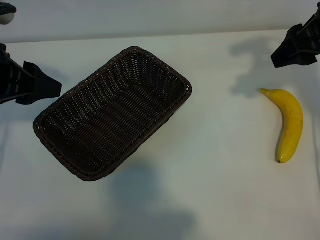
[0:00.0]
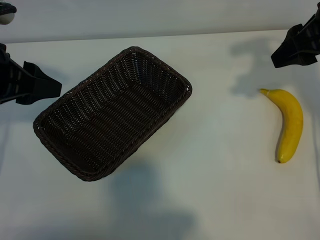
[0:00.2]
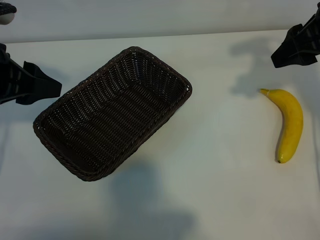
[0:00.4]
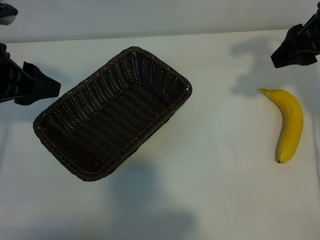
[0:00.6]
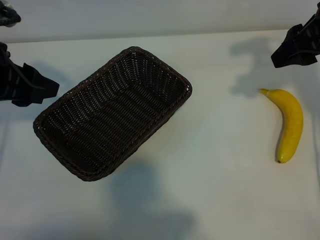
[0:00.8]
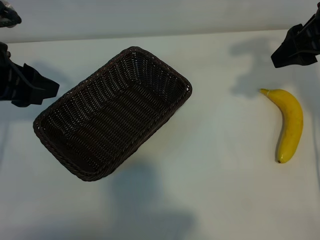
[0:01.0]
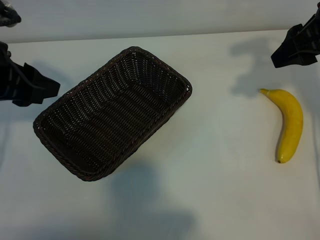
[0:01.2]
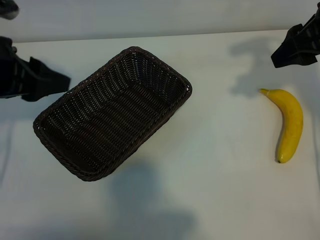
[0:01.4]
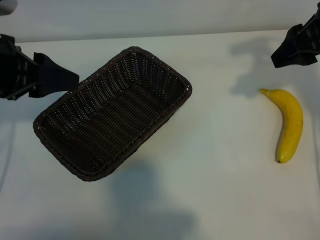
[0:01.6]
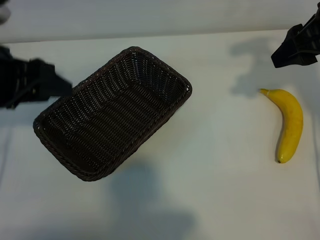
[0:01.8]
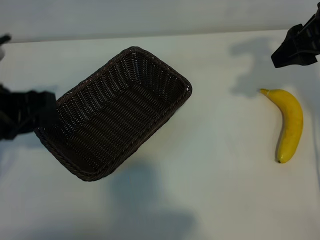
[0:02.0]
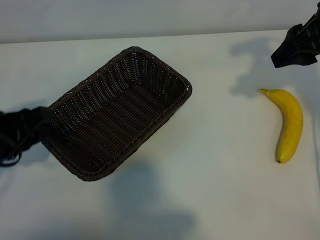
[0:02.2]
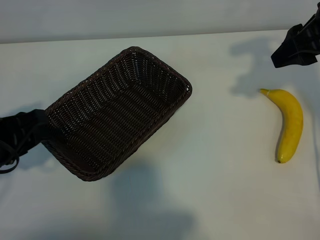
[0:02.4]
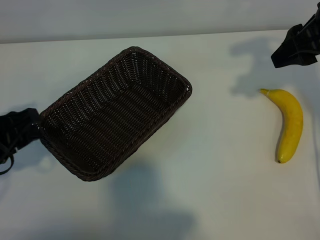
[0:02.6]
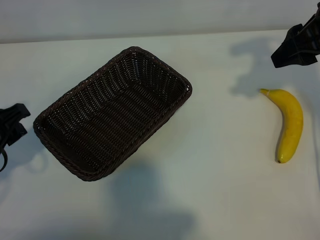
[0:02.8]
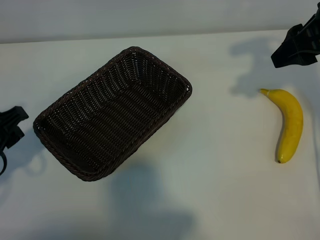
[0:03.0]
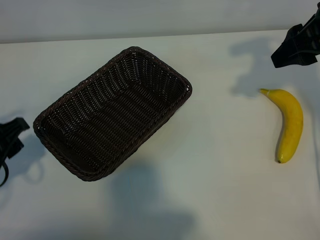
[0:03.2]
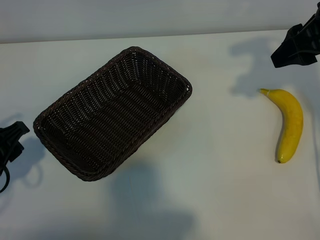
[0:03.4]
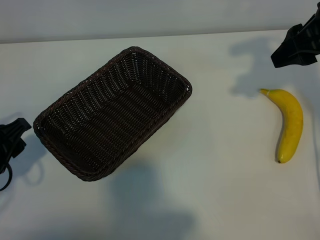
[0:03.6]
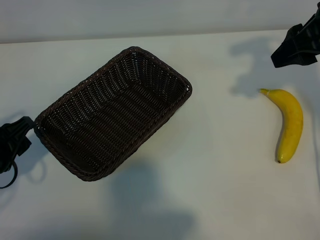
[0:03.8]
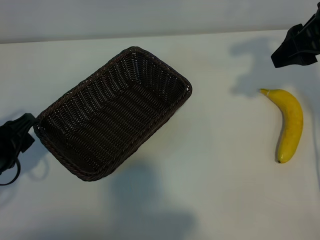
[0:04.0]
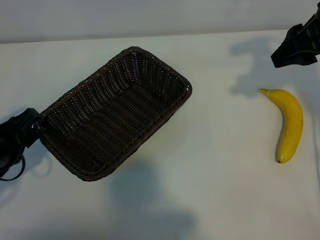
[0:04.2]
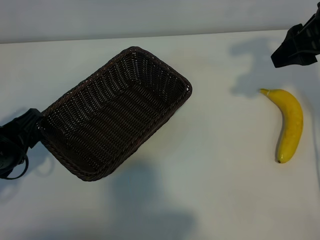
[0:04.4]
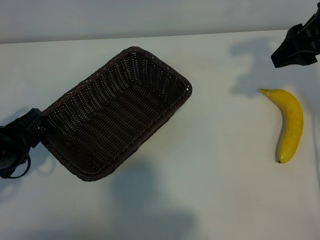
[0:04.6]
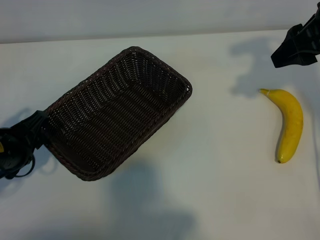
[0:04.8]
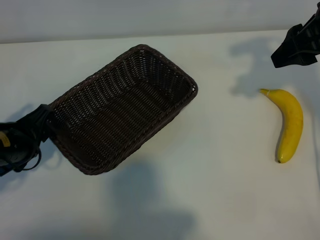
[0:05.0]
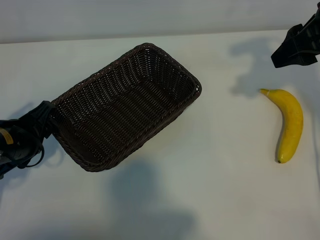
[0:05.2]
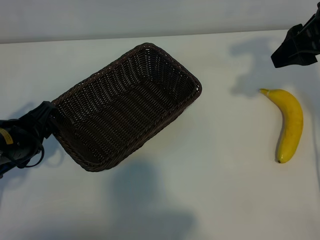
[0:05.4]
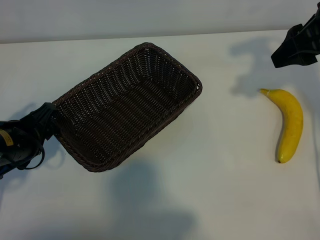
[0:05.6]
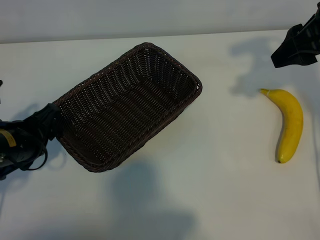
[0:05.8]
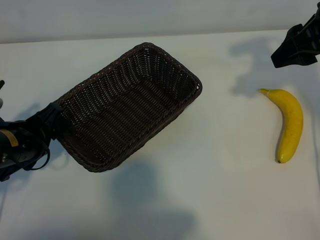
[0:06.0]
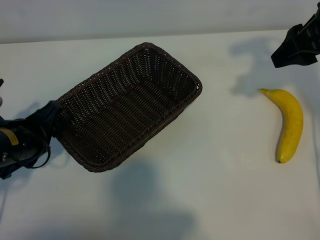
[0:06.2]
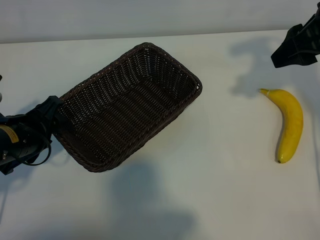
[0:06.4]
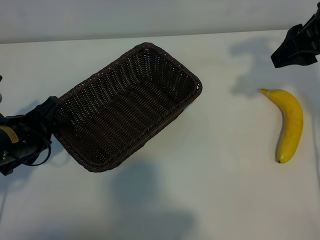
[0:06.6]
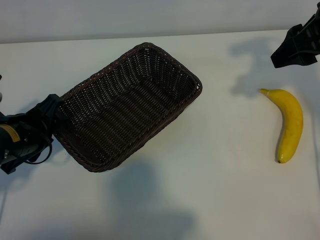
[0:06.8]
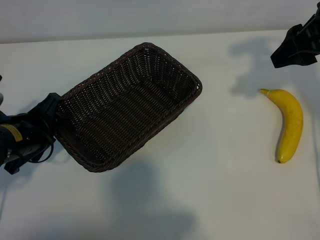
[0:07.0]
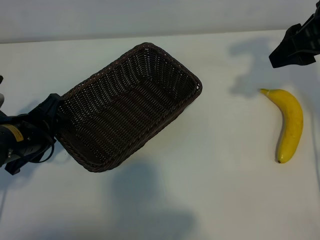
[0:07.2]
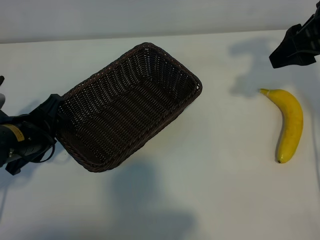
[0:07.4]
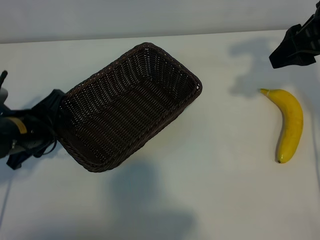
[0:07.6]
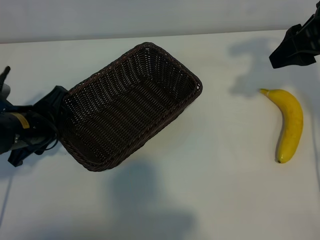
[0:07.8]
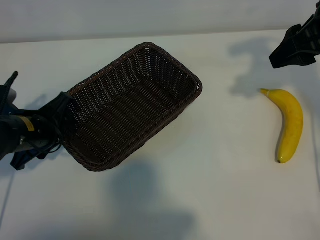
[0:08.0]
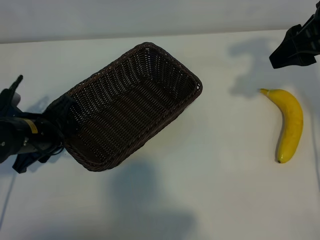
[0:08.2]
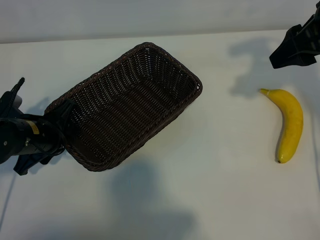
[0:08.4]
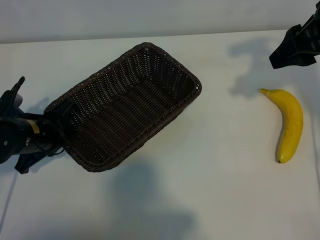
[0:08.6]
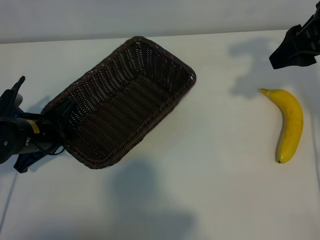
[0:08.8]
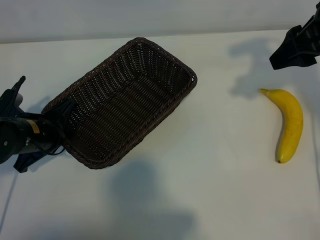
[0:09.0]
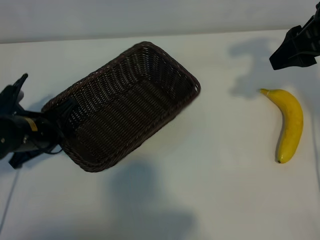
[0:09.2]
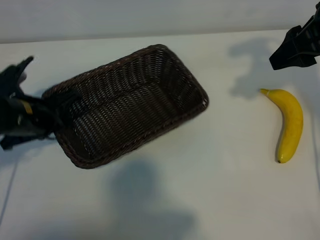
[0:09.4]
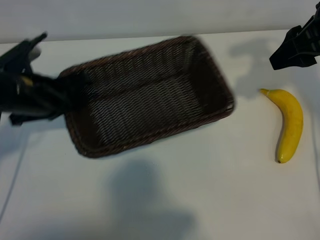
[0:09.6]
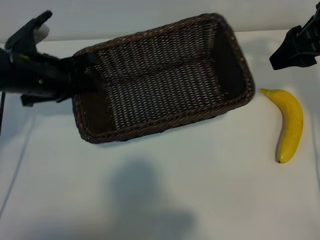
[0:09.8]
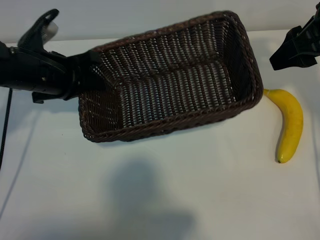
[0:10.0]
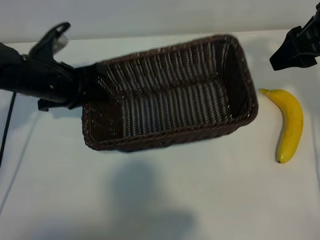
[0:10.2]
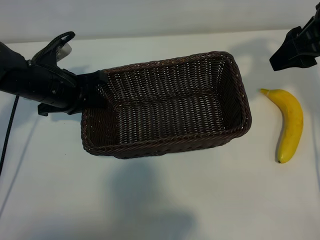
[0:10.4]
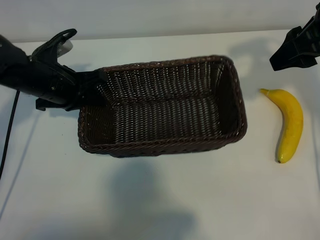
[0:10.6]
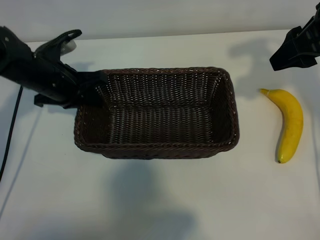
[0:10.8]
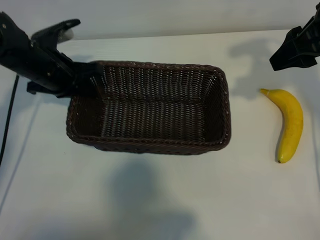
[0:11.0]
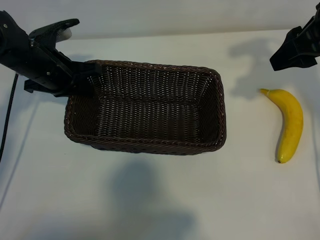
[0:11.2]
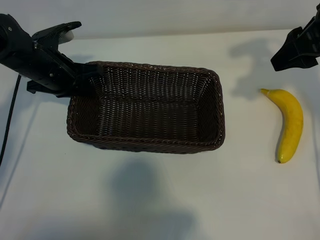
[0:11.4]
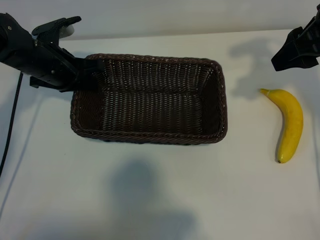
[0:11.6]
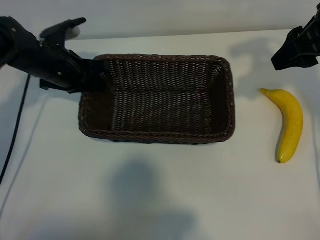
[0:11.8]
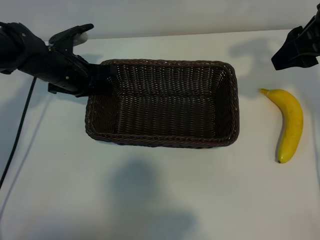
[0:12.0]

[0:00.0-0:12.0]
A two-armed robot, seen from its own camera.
Task of the whole recording: pick up the banana and put it into the basket.
Step, 0:00.6 to 0:08.6: Grasp the basket with the left gripper.

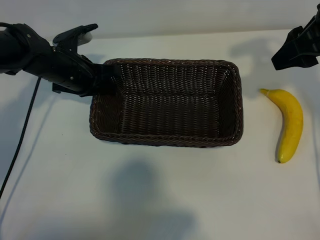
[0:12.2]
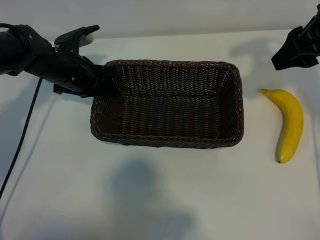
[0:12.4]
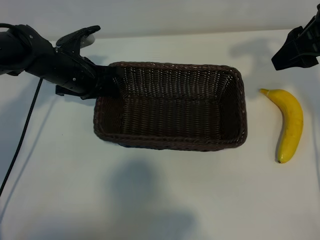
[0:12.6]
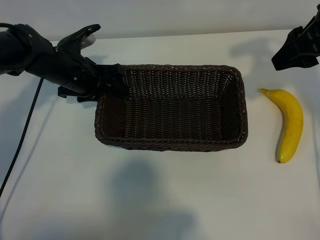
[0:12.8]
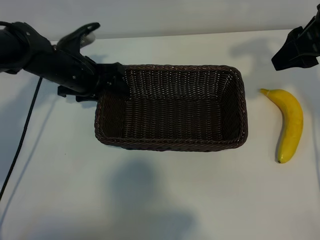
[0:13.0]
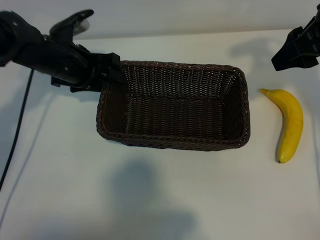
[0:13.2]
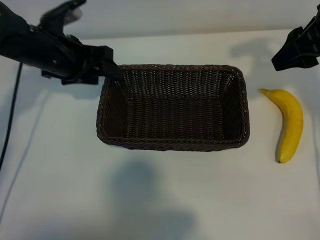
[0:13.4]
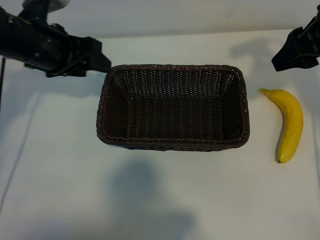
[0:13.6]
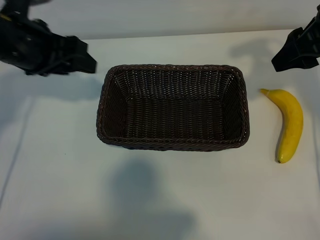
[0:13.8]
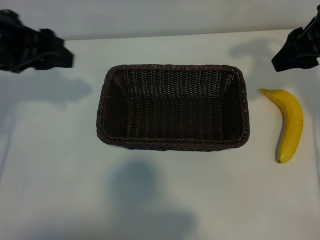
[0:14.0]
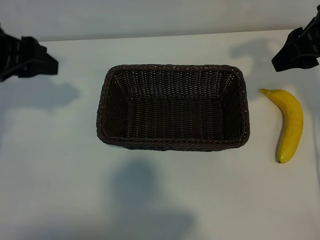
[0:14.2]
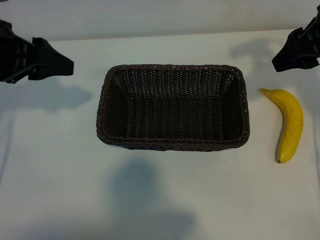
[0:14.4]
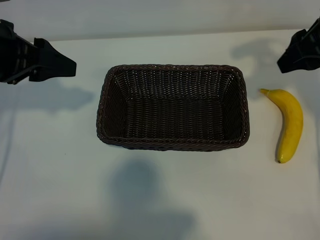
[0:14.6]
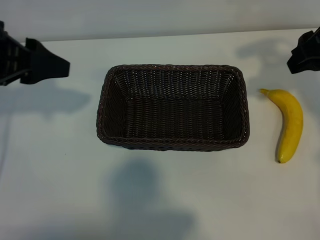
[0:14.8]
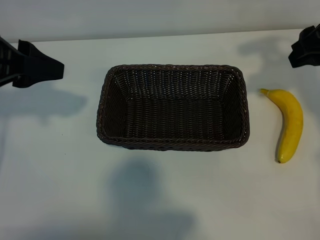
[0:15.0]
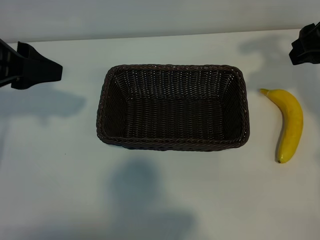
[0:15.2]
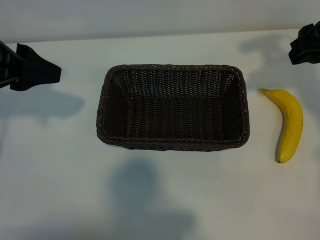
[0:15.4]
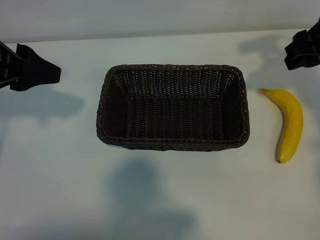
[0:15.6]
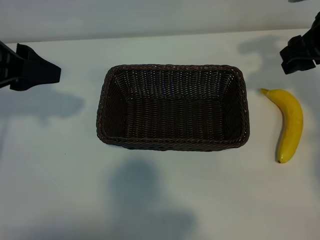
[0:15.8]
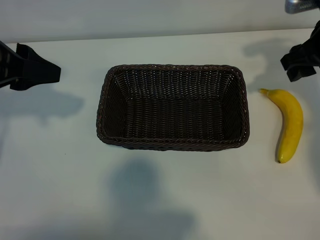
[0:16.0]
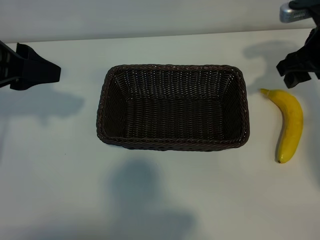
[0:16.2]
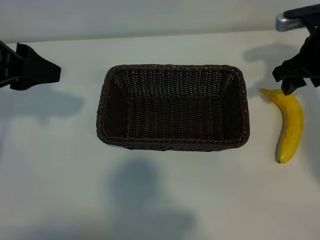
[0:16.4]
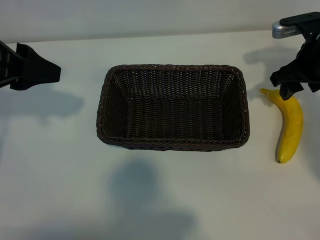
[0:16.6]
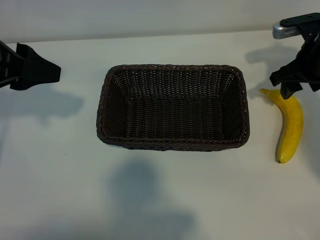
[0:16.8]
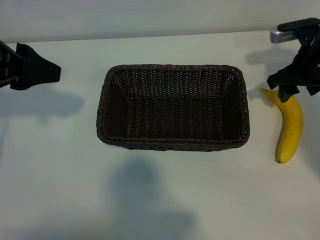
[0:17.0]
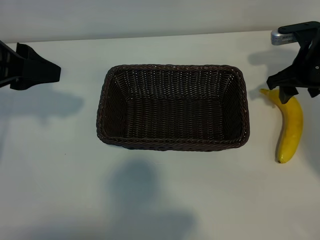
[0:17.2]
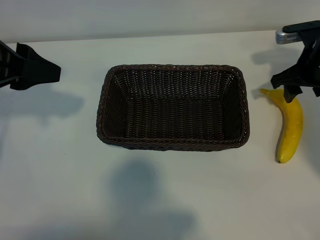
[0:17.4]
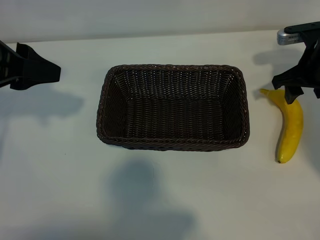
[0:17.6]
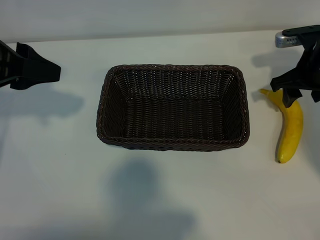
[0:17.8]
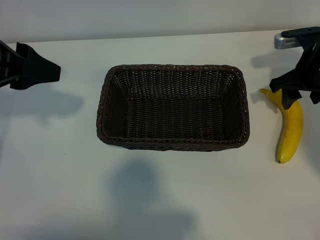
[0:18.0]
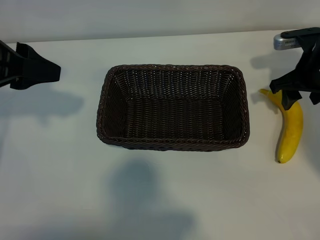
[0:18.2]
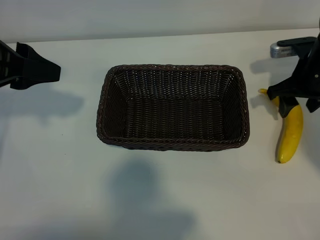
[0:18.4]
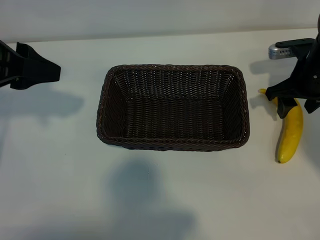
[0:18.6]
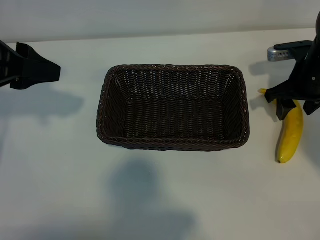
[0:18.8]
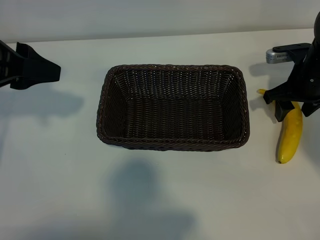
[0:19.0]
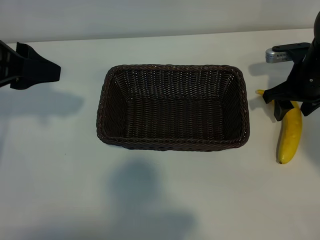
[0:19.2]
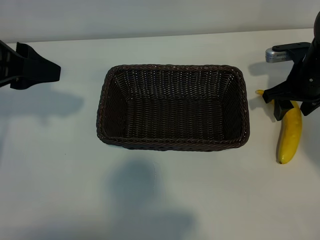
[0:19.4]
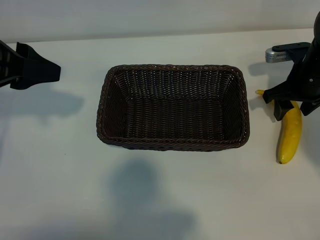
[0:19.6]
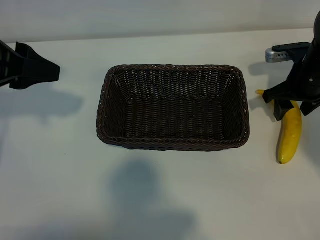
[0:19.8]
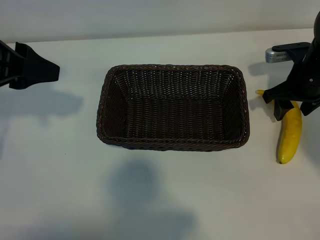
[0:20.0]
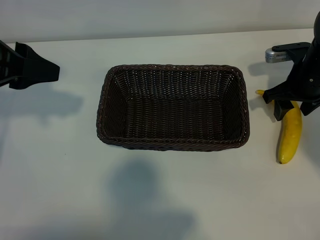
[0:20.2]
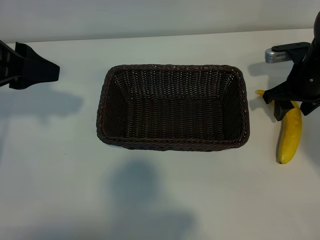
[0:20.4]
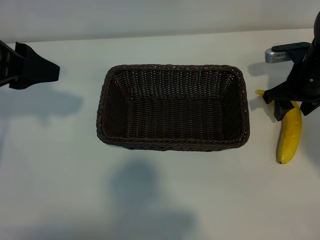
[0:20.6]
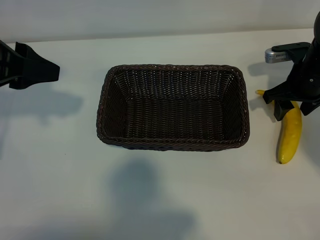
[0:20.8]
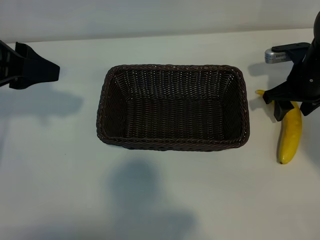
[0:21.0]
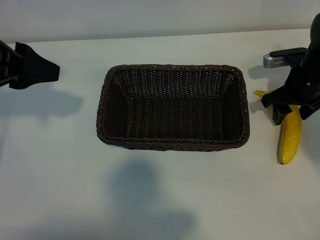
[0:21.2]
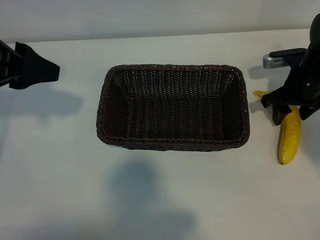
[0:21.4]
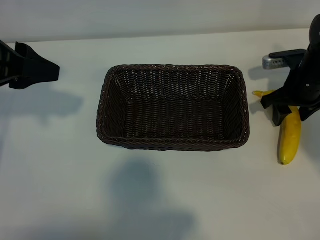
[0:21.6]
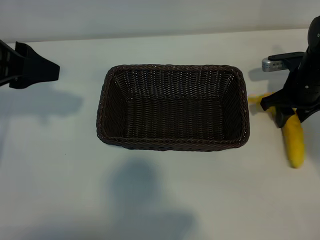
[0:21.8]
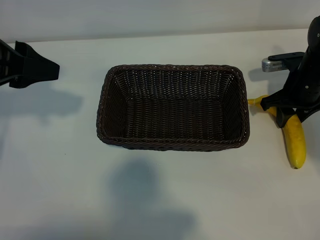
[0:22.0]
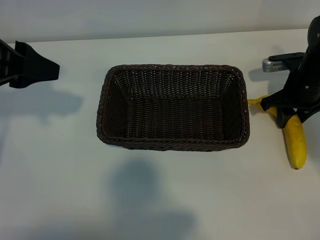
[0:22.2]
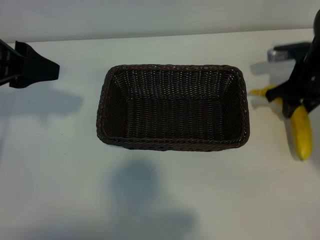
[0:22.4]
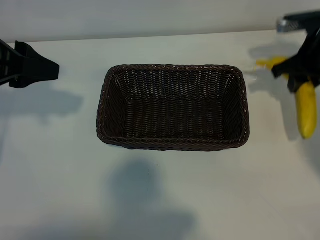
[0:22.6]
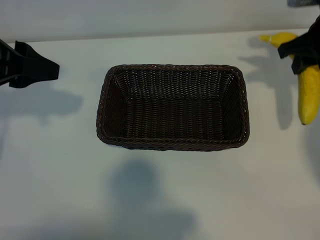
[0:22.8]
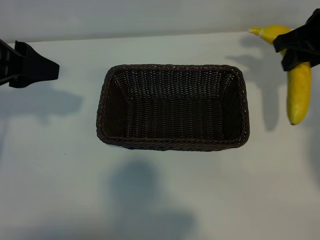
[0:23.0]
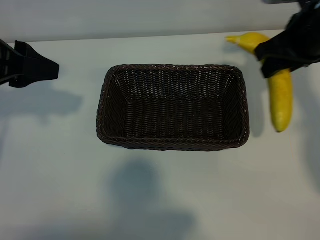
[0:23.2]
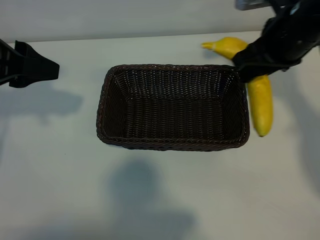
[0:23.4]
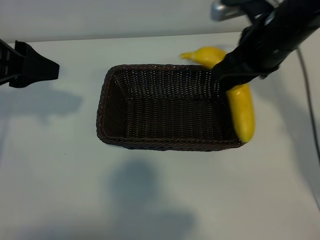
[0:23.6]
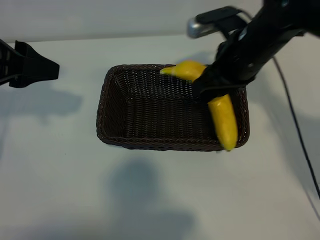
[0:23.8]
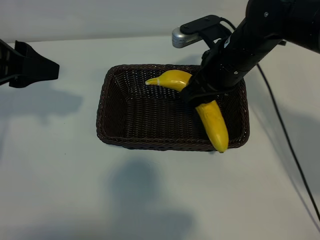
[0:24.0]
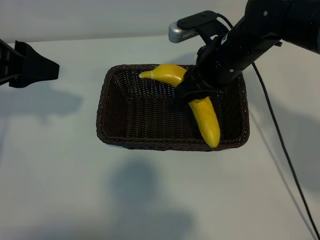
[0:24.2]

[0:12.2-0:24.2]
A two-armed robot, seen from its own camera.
Task of the whole recording: pick up the banana and put it into the basket.
Step, 0:13.4 to 0:22.0: Grasp the banana with right gripper.
